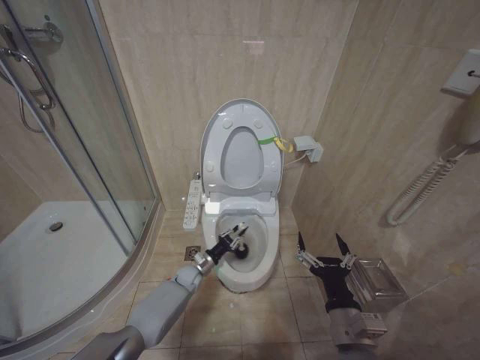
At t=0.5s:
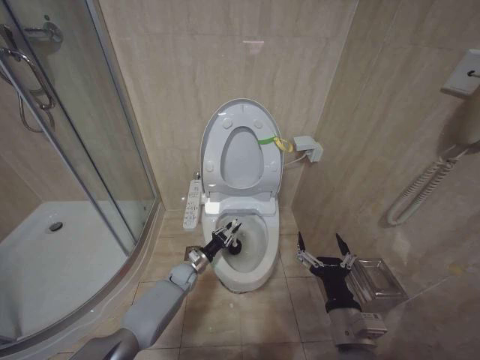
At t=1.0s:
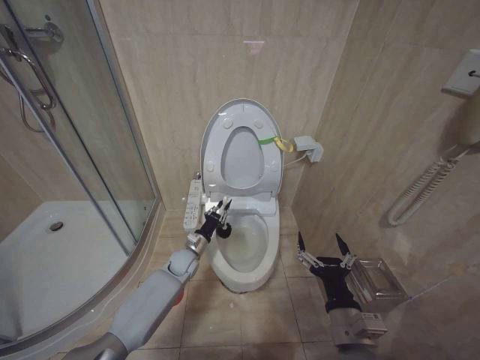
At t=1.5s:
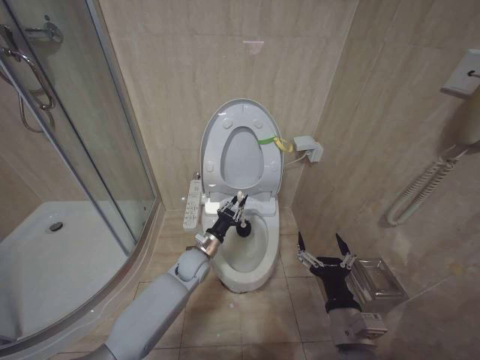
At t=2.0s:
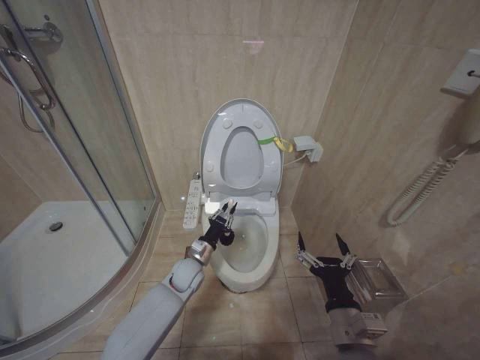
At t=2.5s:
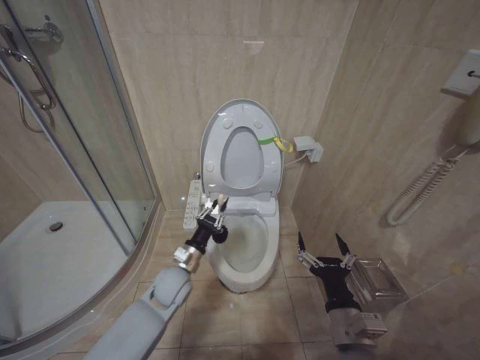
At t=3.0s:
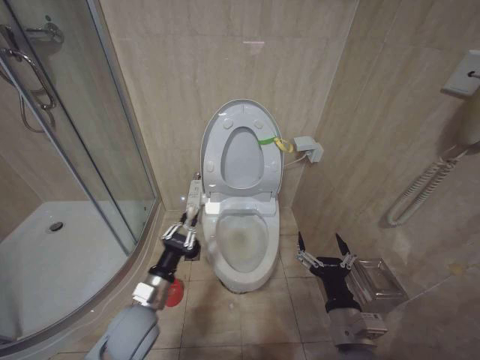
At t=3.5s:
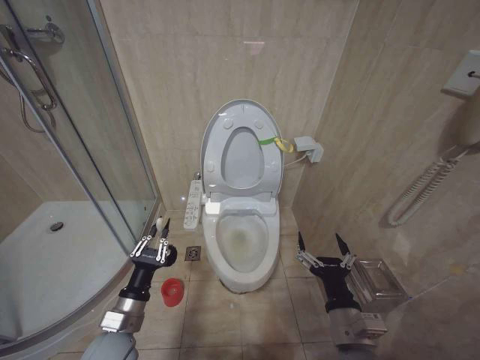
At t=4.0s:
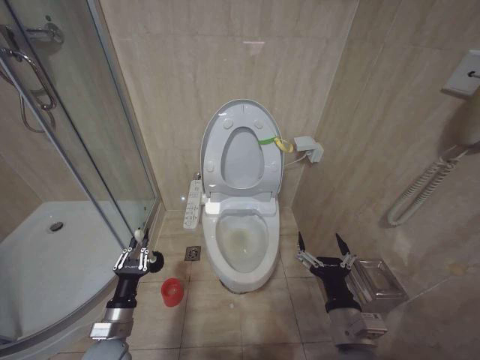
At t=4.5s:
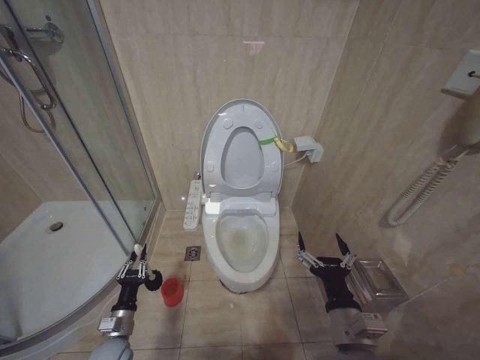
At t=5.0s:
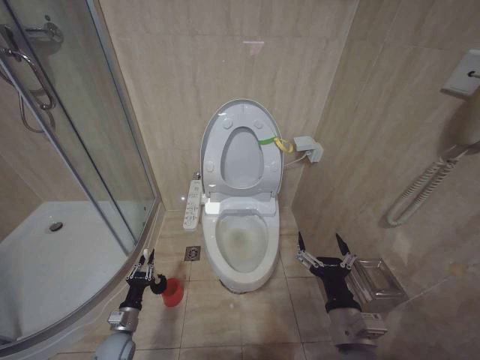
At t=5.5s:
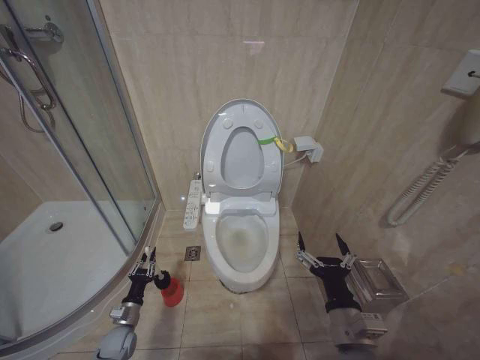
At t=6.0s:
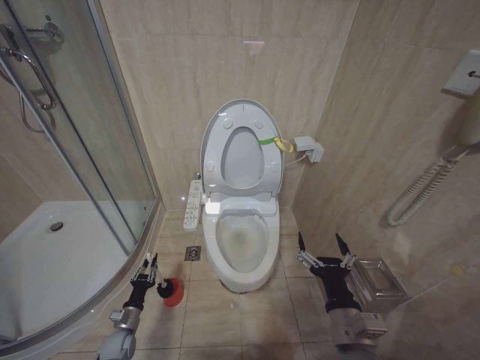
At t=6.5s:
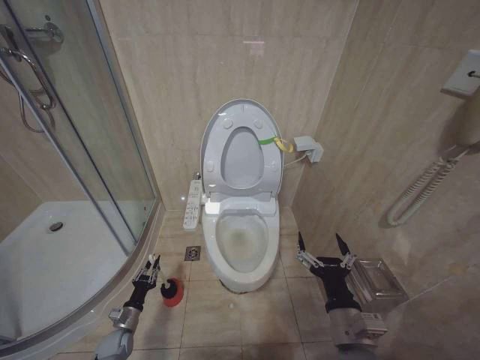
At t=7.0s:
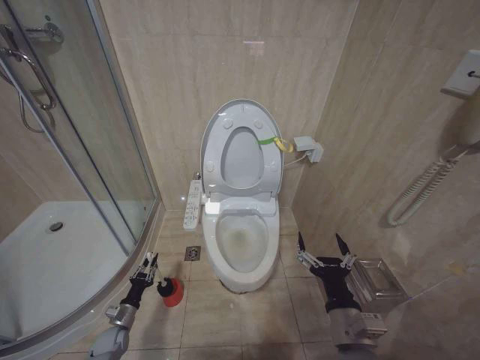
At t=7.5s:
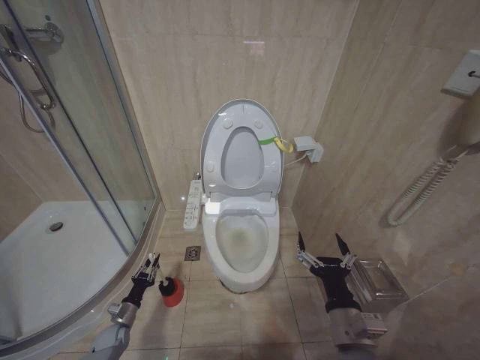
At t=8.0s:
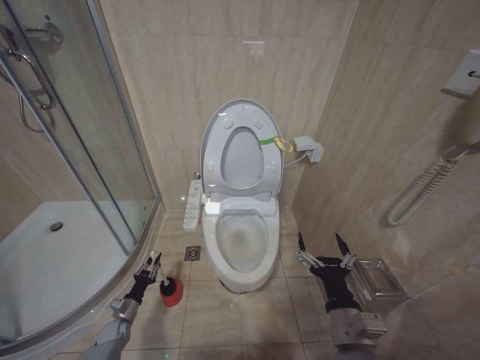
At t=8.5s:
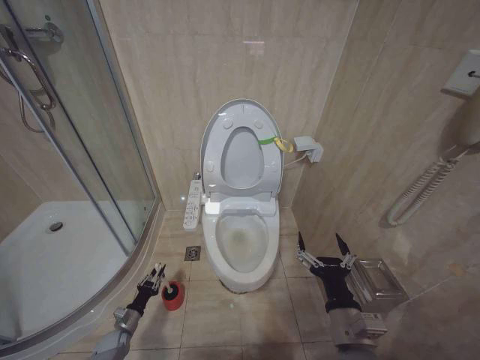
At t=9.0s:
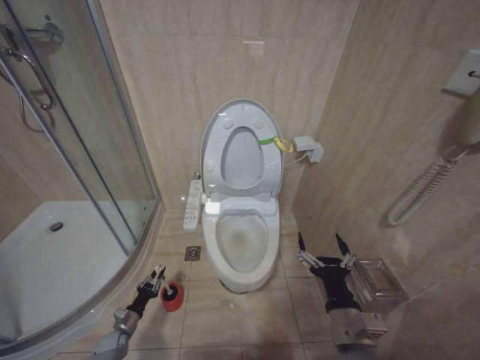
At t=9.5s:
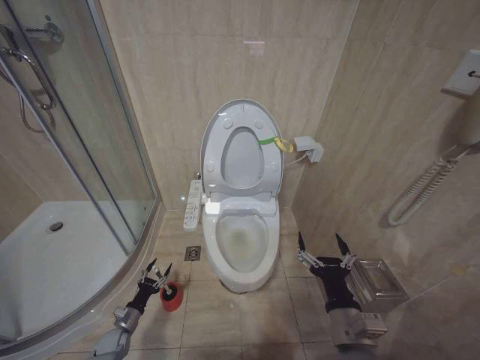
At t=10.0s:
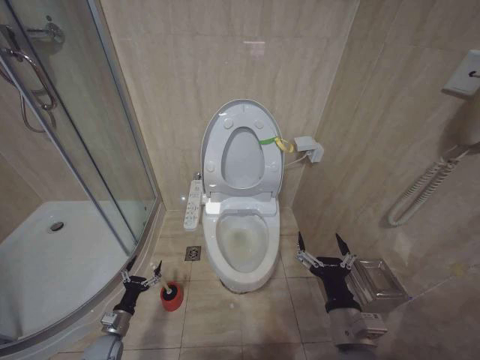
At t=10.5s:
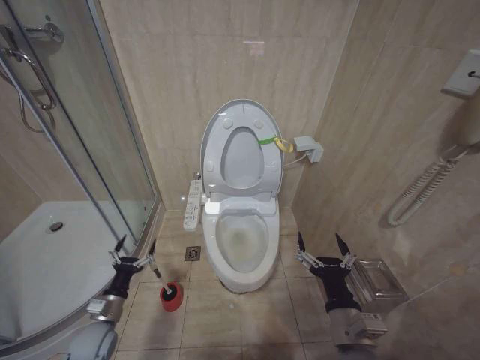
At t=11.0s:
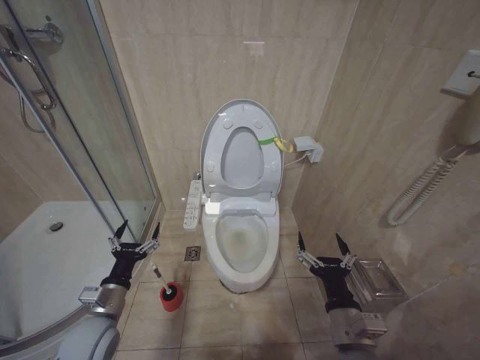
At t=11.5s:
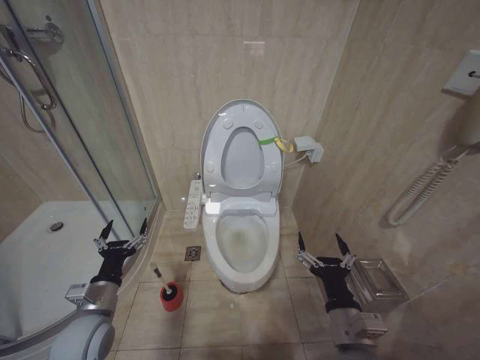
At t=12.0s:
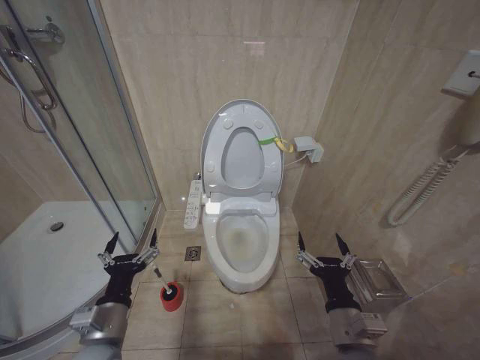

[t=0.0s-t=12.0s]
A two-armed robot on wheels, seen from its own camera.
Task of the whole recording: Open the toilet lid, clean the toilet bowl with a toilet brush, close the toilet lid, and flush.
t=0.0s to t=2.0s: The left gripper travels upward by about 10 cm.
t=2.0s to t=4.0s: The left gripper heads backward and to the left, covering some 25 cm.
t=4.0s to t=6.0s: The left gripper heads downward, covering some 20 cm.
t=6.0s to t=8.0s: The left gripper shifts by approximately 5 cm.
t=8.0s to t=10.0s: The left gripper goes about 5 cm backward, and opens.
t=10.0s to t=12.0s: The left gripper moves upward and to the right, approximately 30 cm.

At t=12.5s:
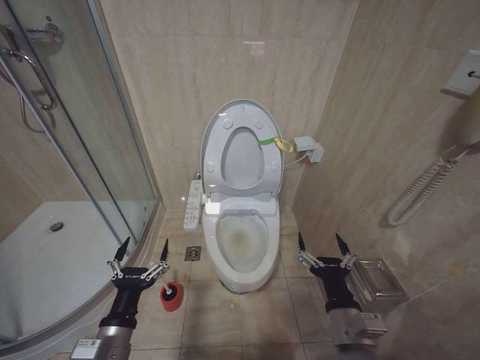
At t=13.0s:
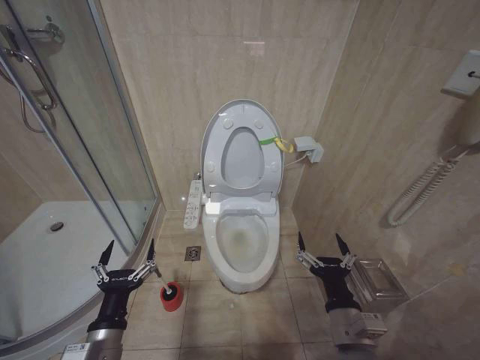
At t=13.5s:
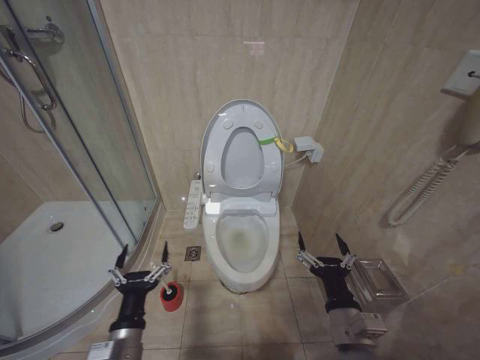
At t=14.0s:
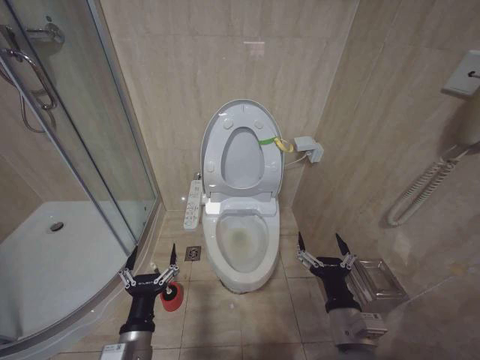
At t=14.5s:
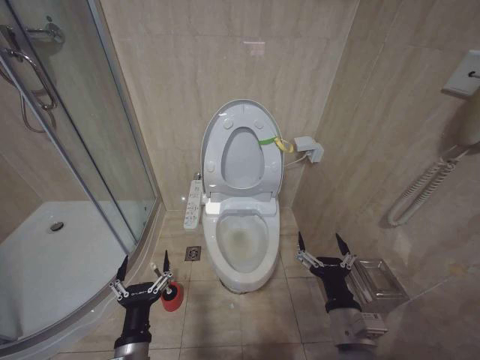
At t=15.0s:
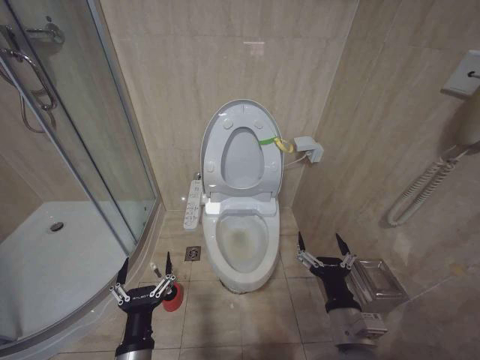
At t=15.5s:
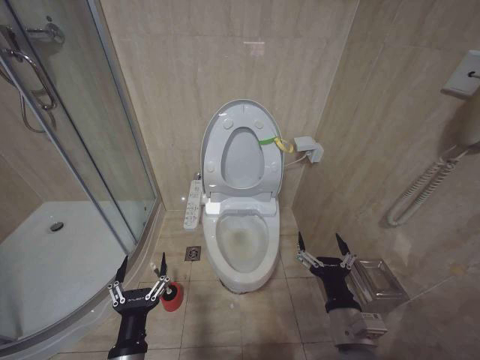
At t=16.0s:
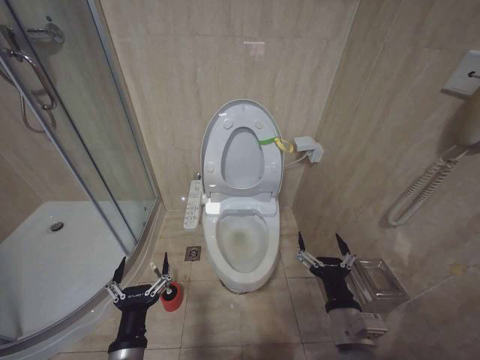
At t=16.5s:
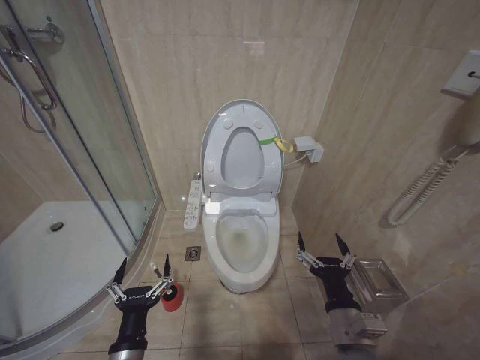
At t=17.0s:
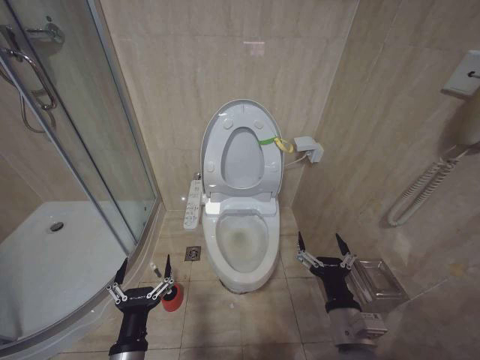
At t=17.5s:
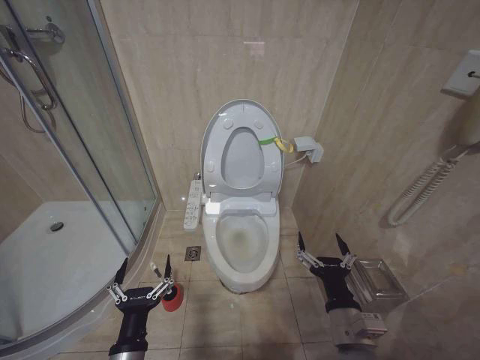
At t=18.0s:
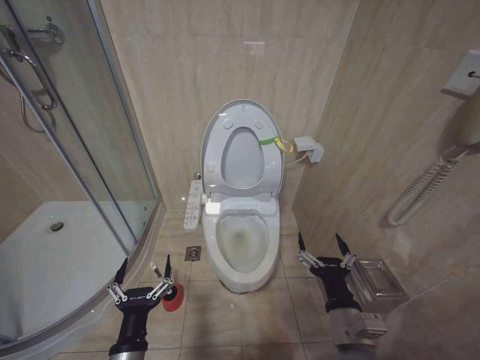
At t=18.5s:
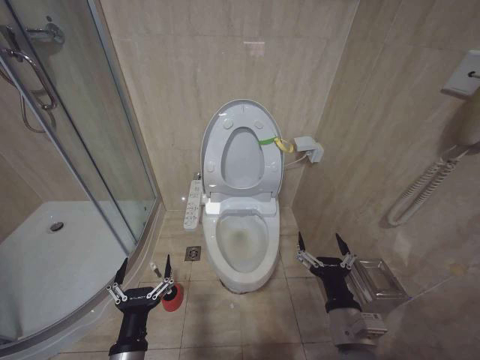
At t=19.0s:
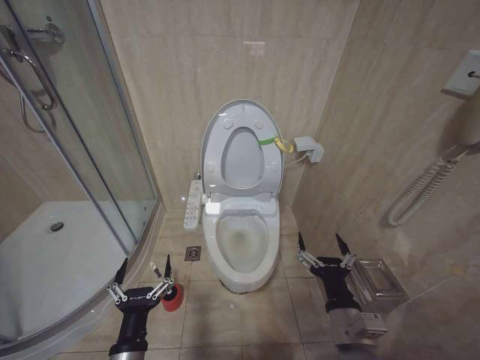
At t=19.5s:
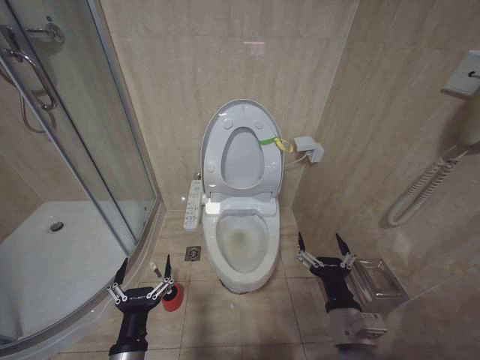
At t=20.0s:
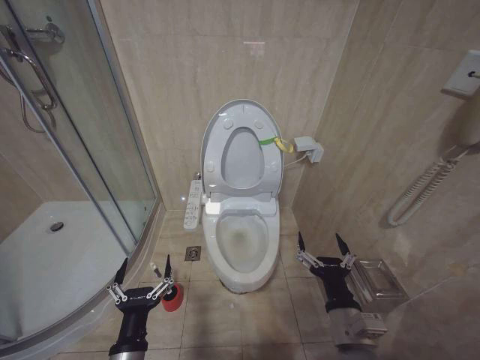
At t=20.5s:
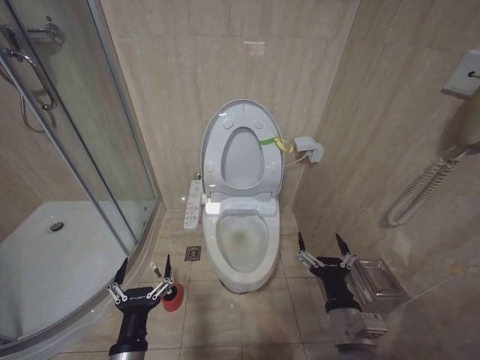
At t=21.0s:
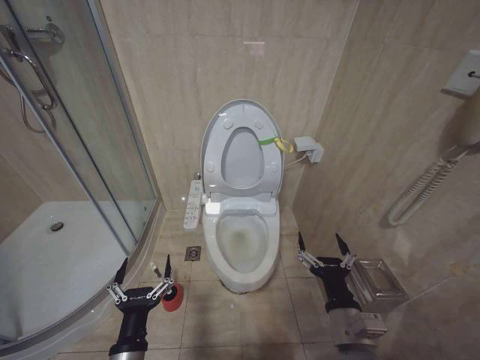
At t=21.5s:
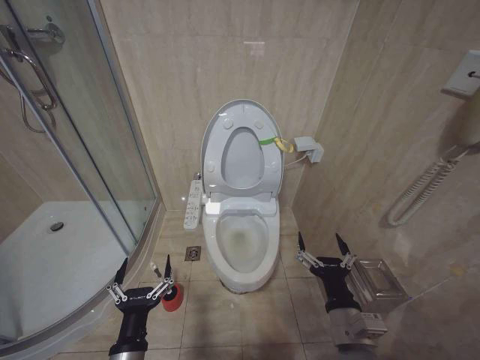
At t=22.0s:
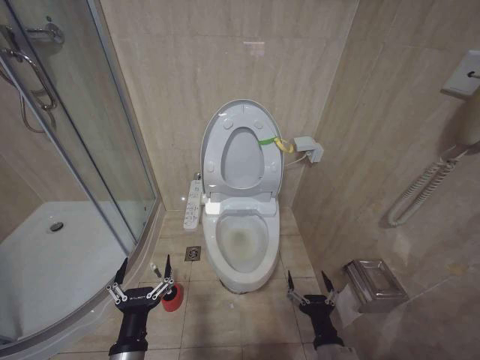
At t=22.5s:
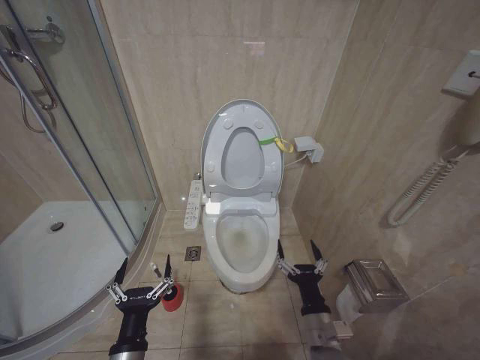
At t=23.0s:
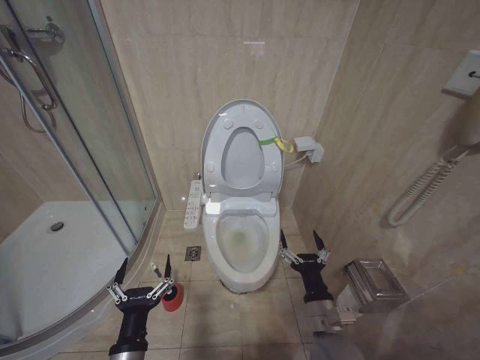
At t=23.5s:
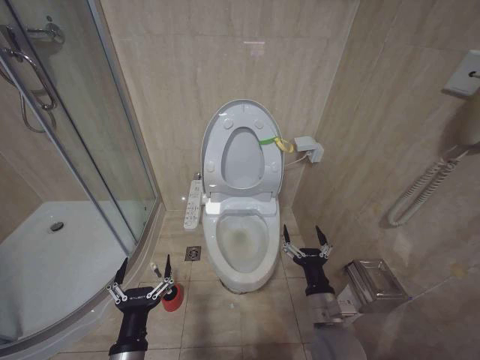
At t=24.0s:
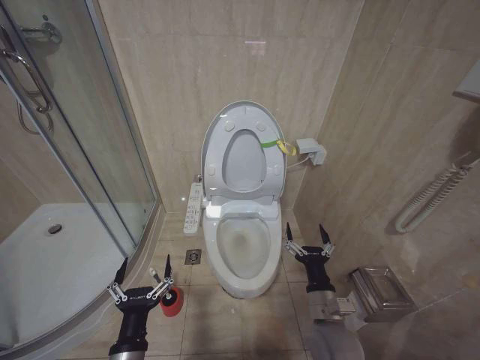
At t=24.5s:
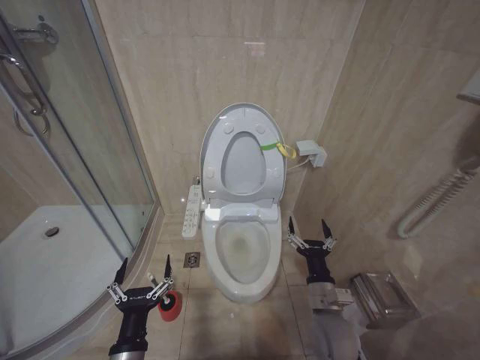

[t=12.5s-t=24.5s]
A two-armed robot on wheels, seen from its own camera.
Task of the whole recording: Open the toilet lid, clean the toilet bowl with a toilet brush, close the toilet lid, and flush.
t=12.5s to t=14.5s: The left gripper ends up approximately 5 cm from where it was.
t=14.5s to t=16.5s: The grippers stay close to where they were, moving slightly.
t=16.5s to t=20.5s: Neither gripper changes place.
t=20.5s to t=22.5s: The right gripper is displaced downward by about 10 cm.
t=22.5s to t=24.5s: The right gripper shifts some 5 cm forward.

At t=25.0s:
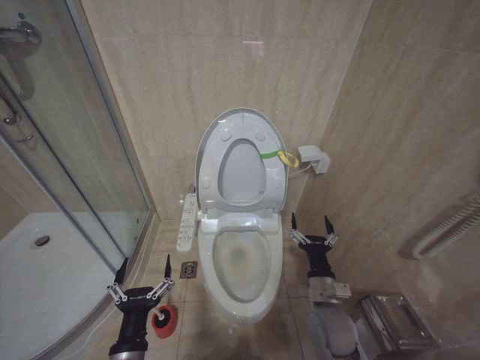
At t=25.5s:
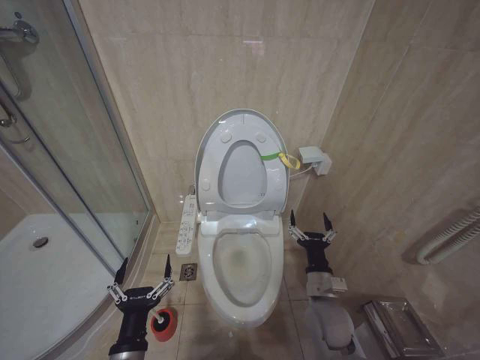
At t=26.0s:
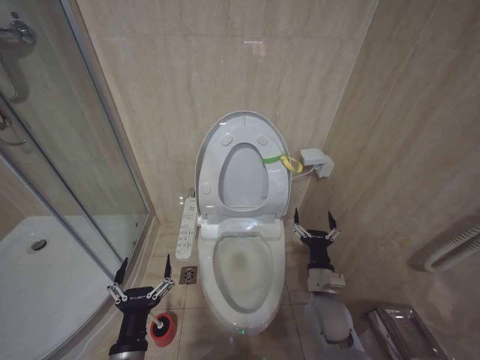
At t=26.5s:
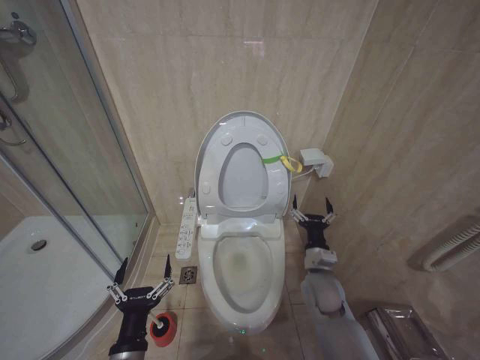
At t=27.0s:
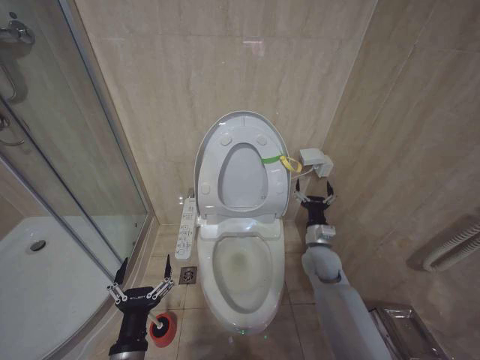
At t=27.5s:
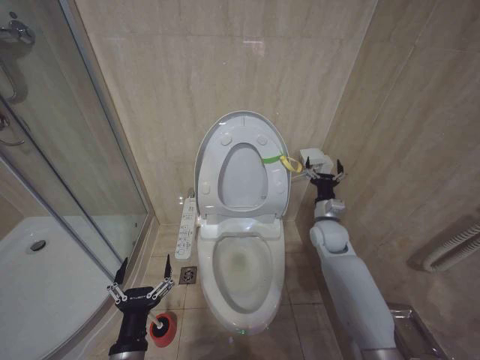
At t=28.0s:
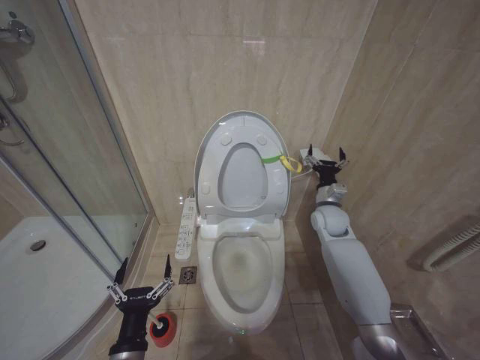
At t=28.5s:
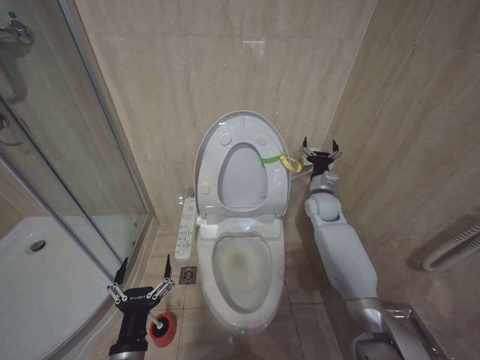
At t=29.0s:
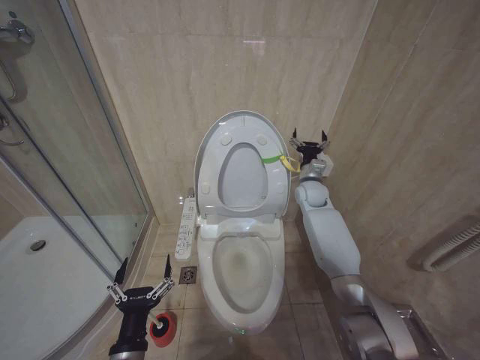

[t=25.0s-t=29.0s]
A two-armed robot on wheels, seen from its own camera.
Task of the whole recording: Open the toilet lid, clean the toilet bowl with a toilet brush, close the toilet lid, and flush.
t=25.0s to t=27.0s: The right gripper is displaced forward by roughly 15 cm.
t=27.0s to t=29.0s: The right gripper goes some 20 cm forward and upward.
